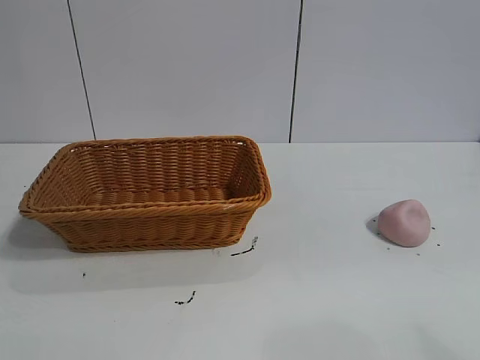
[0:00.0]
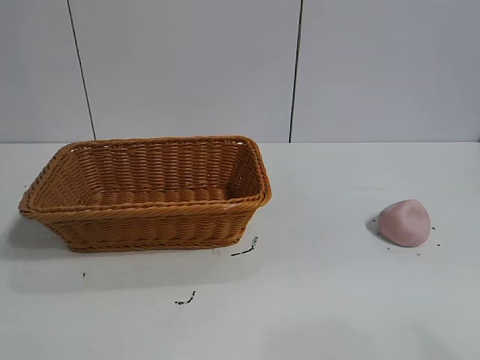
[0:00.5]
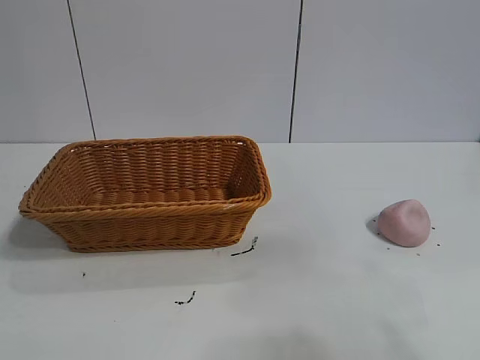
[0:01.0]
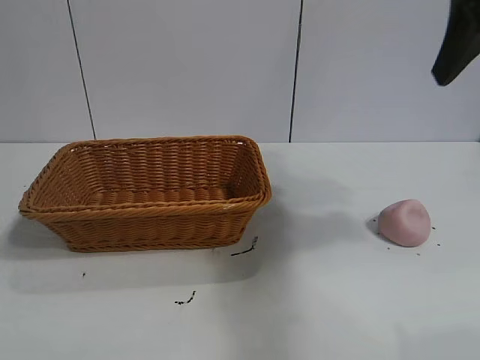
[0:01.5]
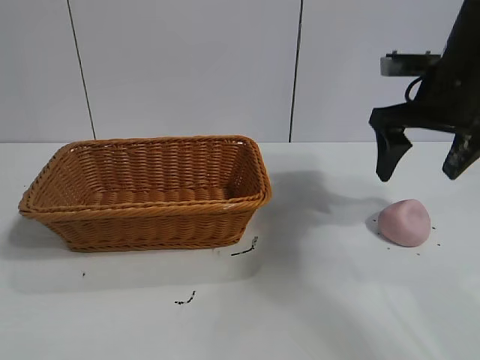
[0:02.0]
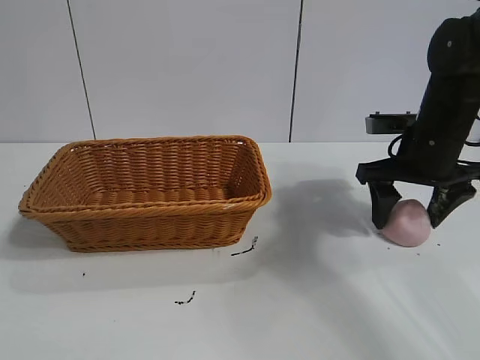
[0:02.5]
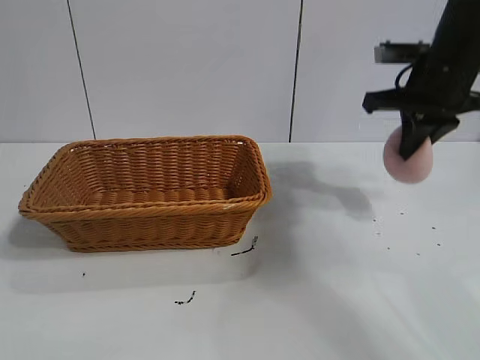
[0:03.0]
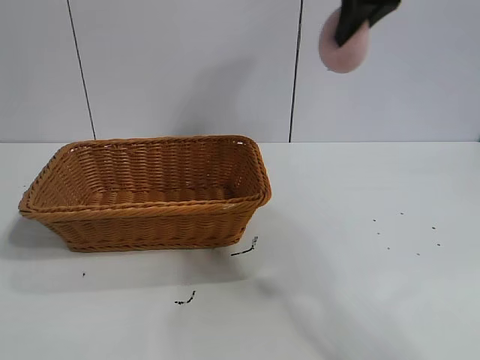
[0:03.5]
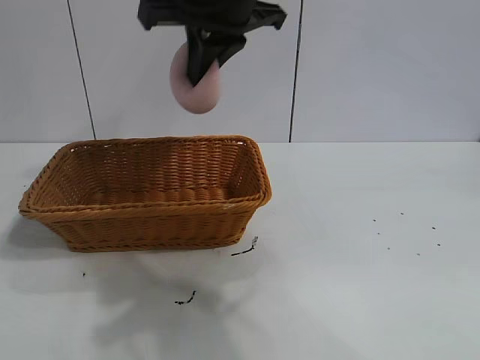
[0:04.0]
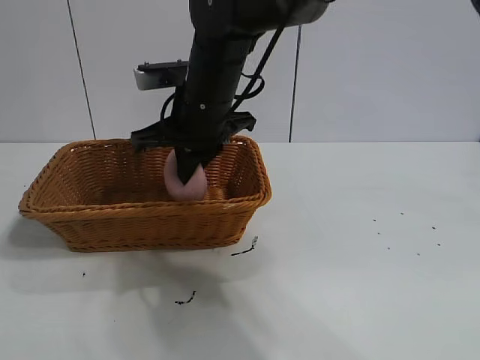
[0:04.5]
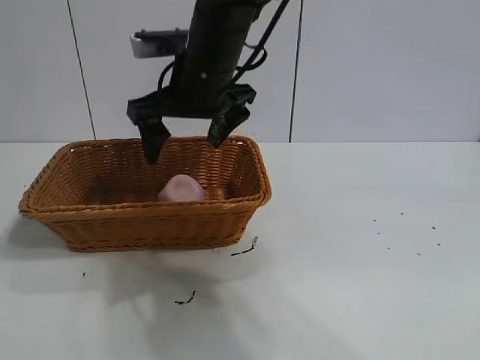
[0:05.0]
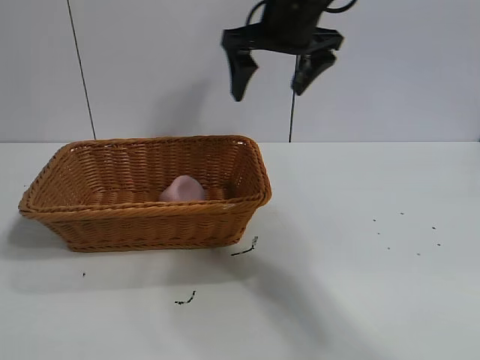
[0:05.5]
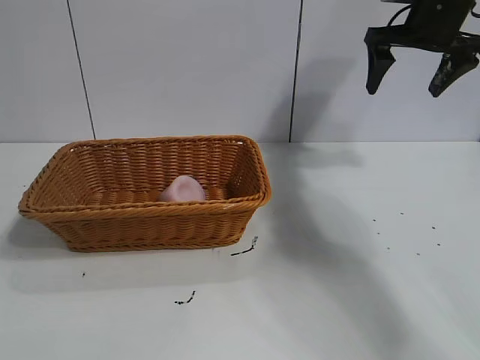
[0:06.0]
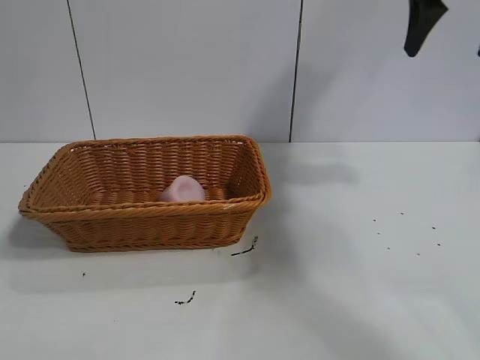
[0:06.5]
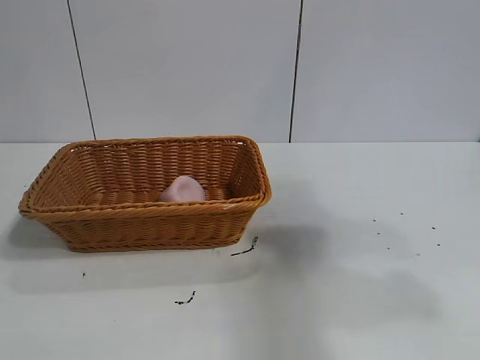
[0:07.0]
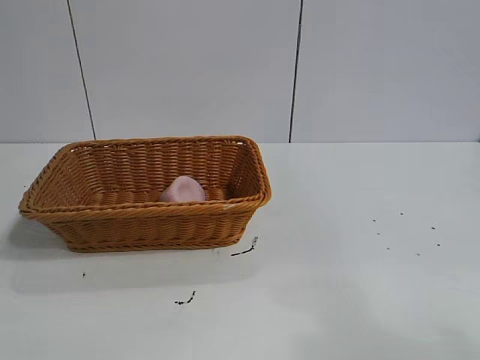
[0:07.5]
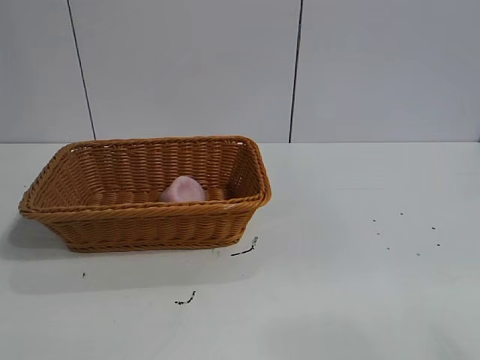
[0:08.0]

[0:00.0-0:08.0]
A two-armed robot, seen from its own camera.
Task of the whole recording: pick up the peach and put it into the basket.
Step, 0:01.0 to 0:02.5: Grasp the peach with right gripper.
Step, 0:03.0 to 0:05.0: Place the peach in the basket with right gripper.
